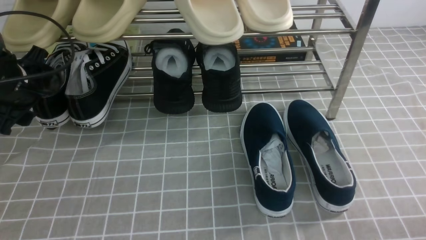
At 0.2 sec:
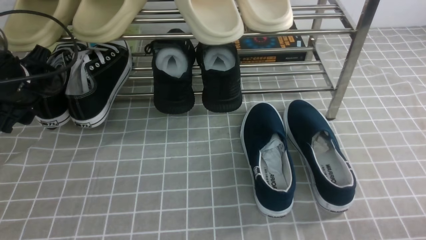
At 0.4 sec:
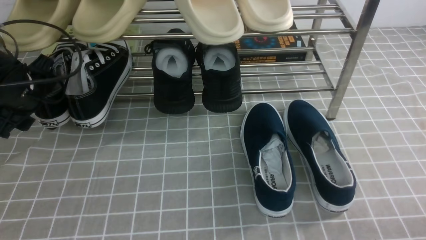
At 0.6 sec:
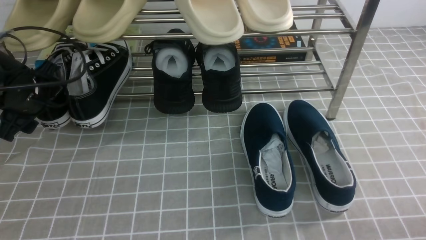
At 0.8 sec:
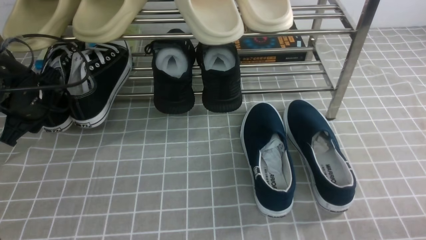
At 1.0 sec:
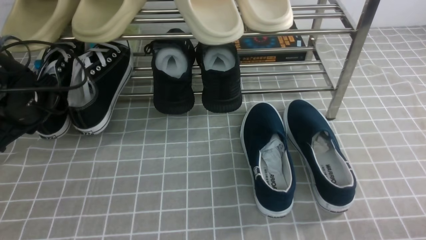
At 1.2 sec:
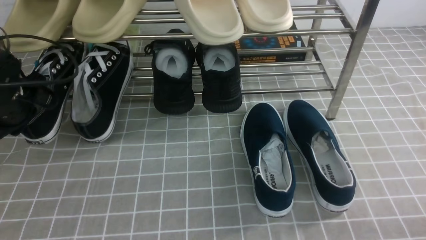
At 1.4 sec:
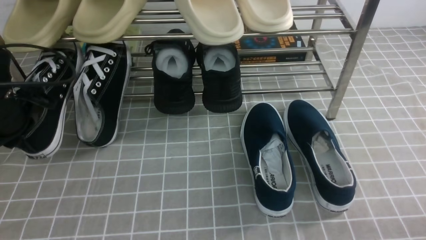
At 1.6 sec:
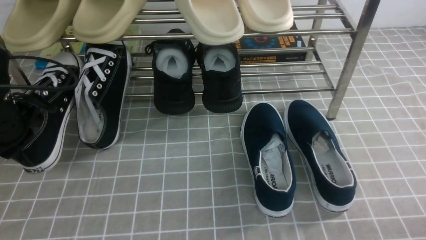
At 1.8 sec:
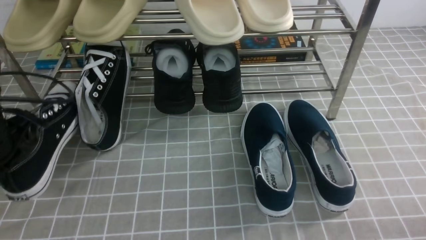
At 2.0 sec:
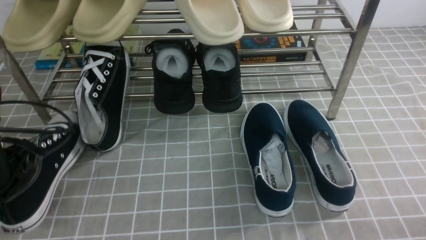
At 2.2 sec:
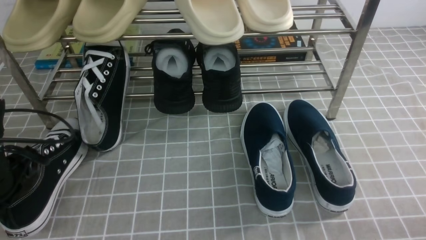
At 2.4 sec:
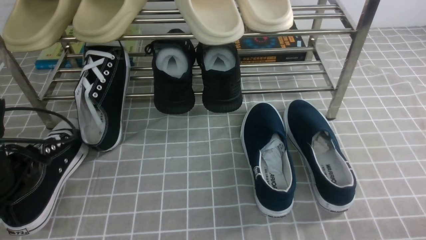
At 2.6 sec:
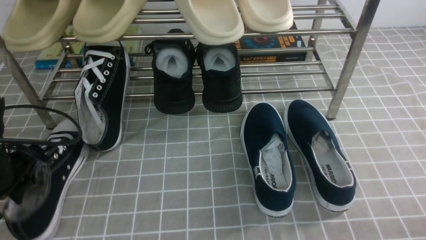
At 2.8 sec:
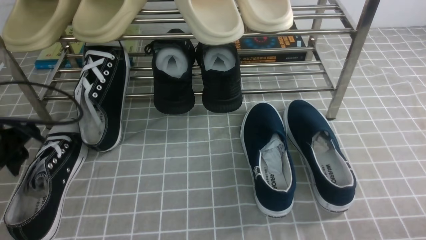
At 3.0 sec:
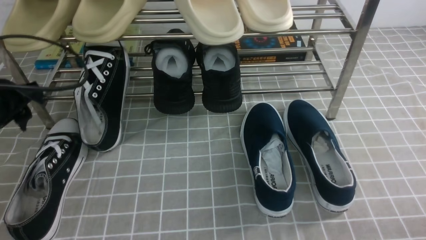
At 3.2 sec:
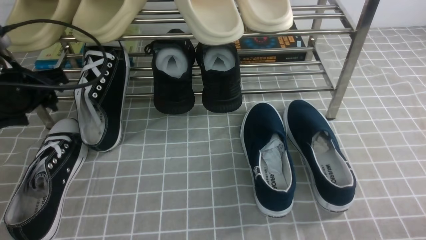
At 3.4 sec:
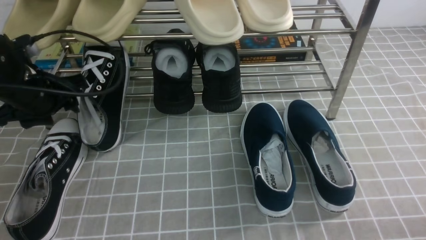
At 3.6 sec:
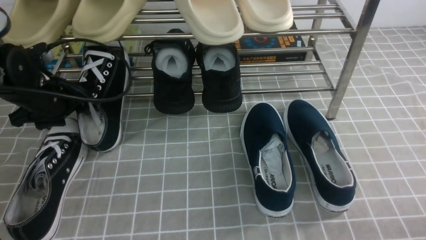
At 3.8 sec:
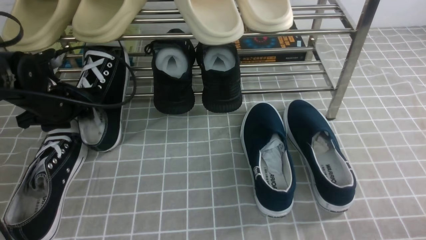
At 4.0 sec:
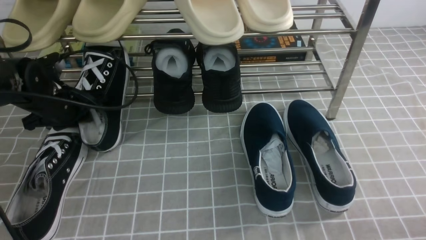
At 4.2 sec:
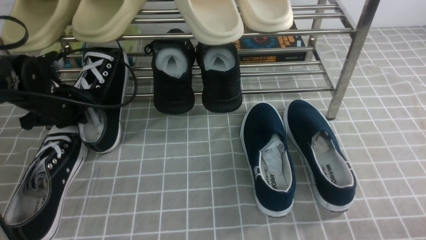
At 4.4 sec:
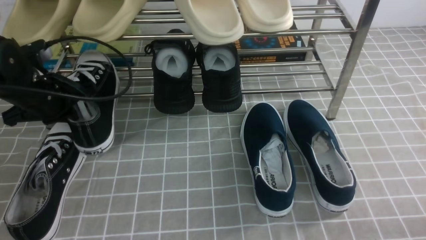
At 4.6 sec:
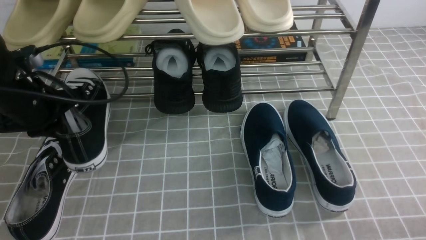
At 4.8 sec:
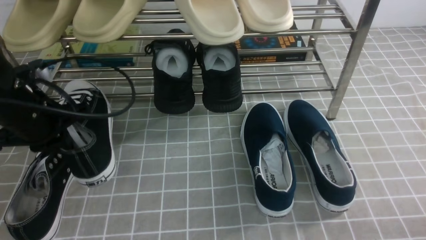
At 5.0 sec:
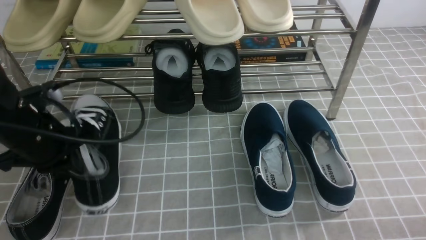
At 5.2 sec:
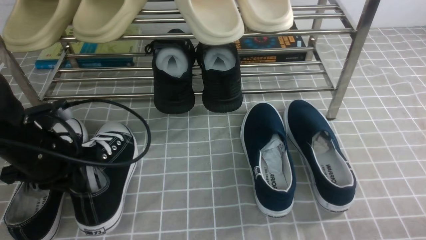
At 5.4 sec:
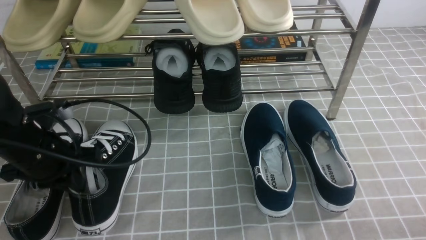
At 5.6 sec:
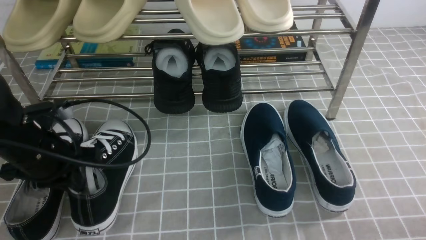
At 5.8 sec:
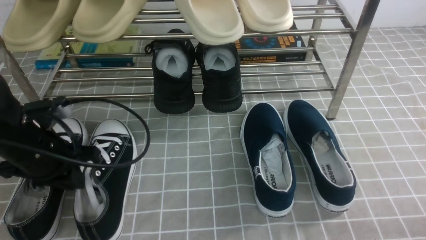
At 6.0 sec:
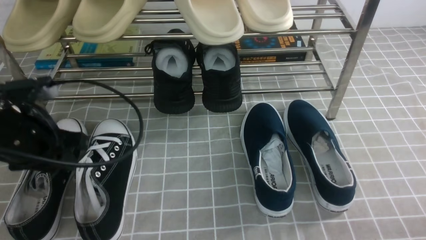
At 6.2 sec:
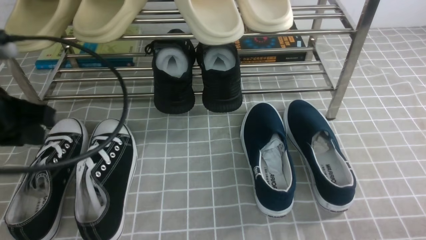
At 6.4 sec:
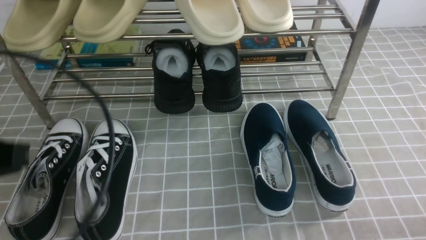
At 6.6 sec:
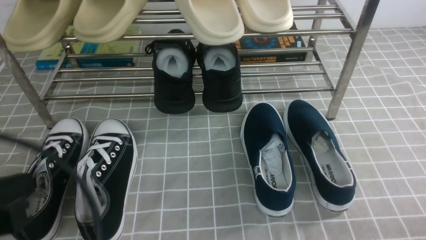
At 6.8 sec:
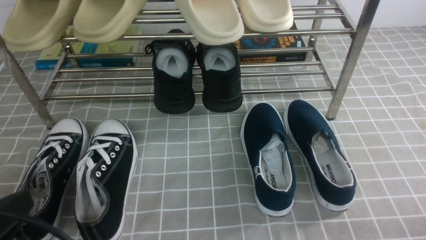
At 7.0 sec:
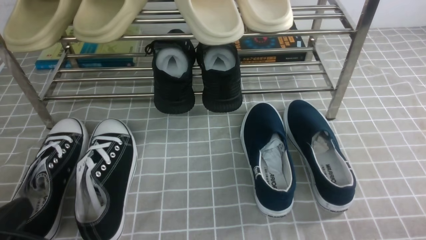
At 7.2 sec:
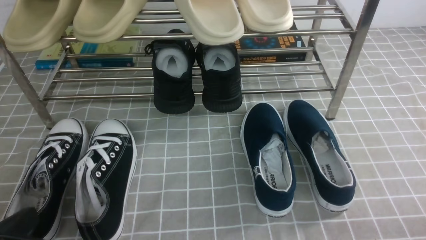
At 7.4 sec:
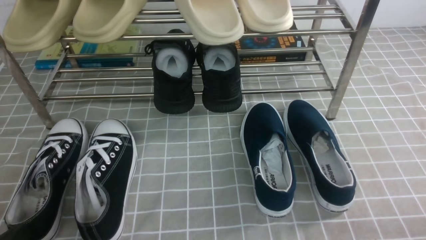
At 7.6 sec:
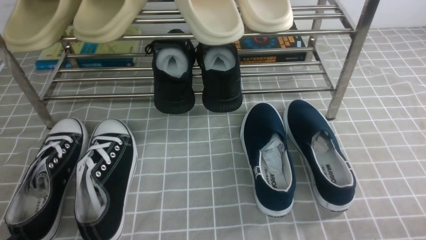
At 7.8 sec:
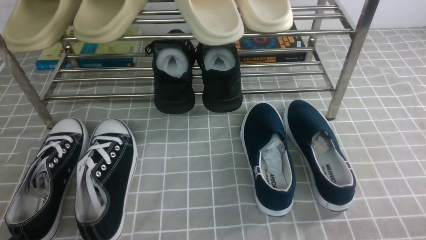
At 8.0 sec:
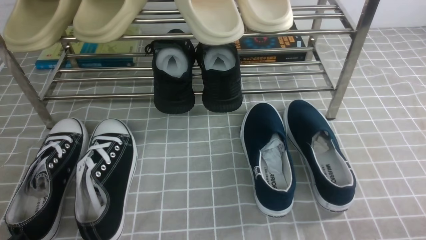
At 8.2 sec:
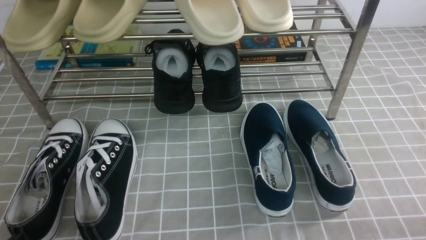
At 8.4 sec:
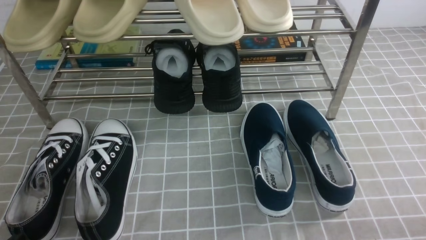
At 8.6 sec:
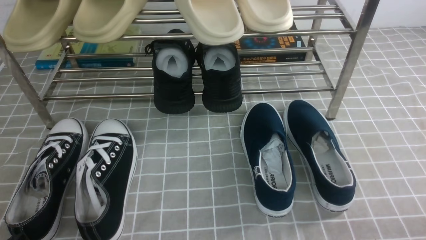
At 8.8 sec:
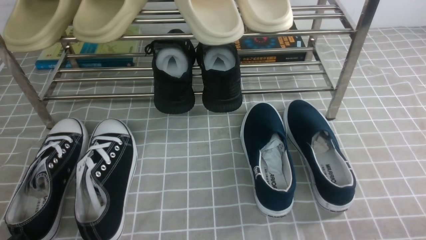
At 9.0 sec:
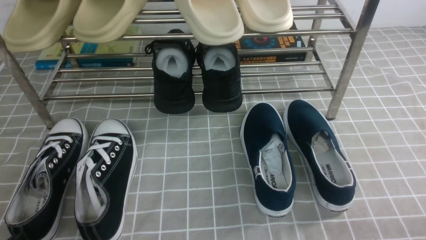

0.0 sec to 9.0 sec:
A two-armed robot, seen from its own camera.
Step, 1.2 sec to 2.8 sec: Use your left arm to remove the clamped shoe from the shoe rack and put it down.
Step, 3.0 sec to 4.6 sec: use the left arm to clamp a shoe on the left side of the shoe rack.
Step, 4.8 sec to 6.0 sec: Use your left arm to remove the clamped shoe from the shoe rack and put it down.
0.0 sec to 1.6 sec: The left gripper travels backward by approximately 5 cm, and closes up.
1.6 sec to 3.0 sec: The left gripper opens its fingers.
3.0 sec to 4.4 sec: The left gripper moves forward, roughly 5 cm, and closes up.
4.4 sec to 6.0 sec: The left gripper moves backward, about 10 cm, and opens its fingers.
6.0 sec to 7.6 sec: The left gripper moves backward and downward, some 20 cm, and closes up.
7.6 sec to 9.0 sec: Both grippers stay about where they are.

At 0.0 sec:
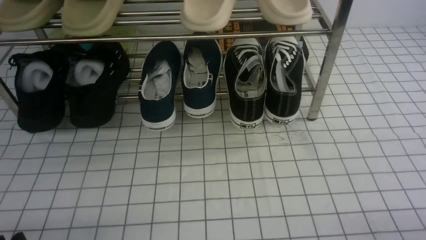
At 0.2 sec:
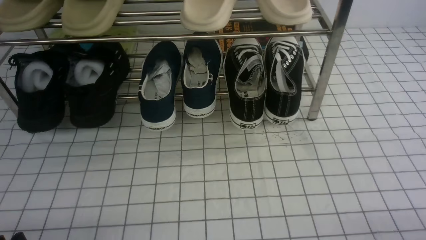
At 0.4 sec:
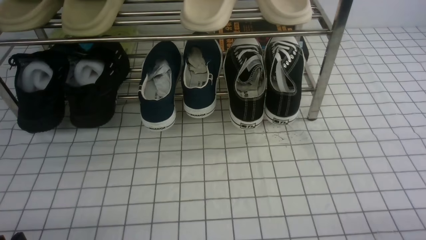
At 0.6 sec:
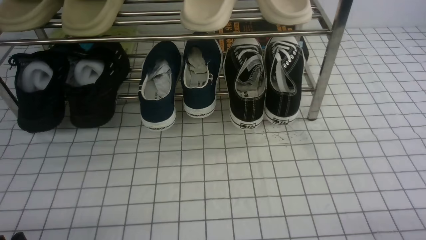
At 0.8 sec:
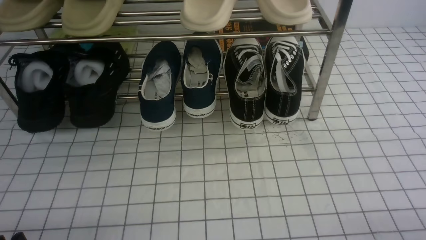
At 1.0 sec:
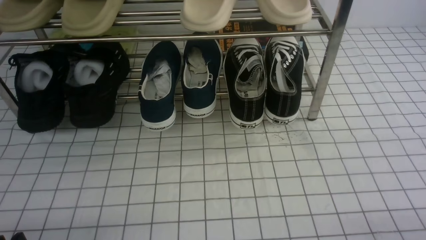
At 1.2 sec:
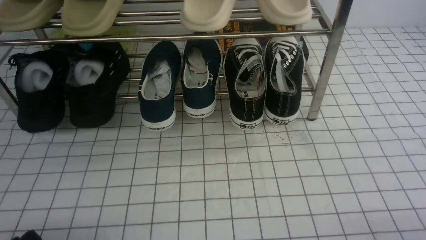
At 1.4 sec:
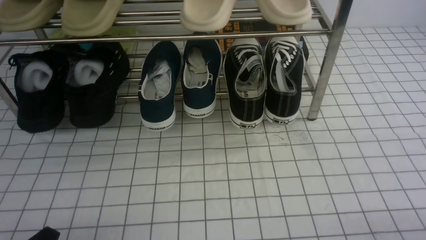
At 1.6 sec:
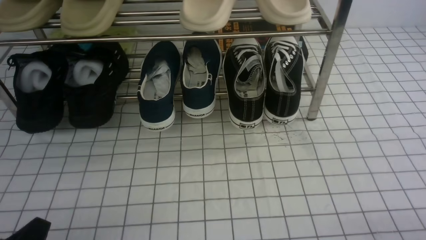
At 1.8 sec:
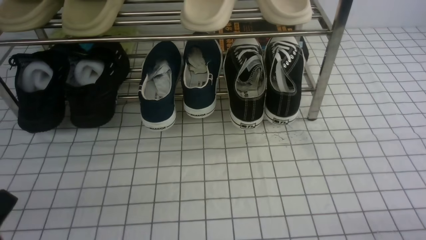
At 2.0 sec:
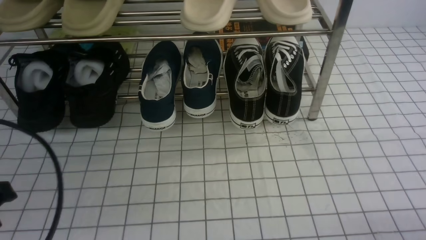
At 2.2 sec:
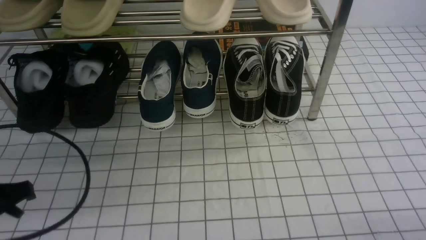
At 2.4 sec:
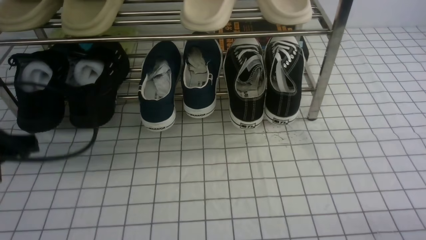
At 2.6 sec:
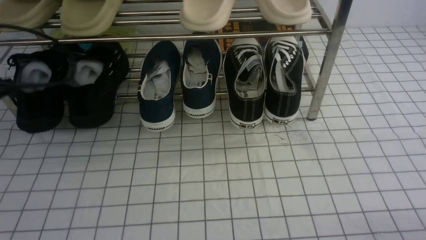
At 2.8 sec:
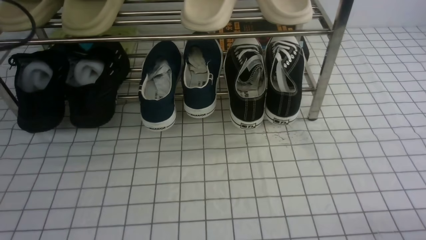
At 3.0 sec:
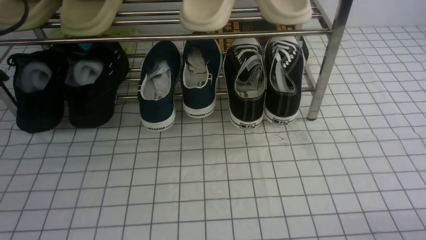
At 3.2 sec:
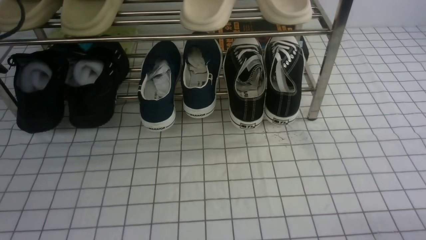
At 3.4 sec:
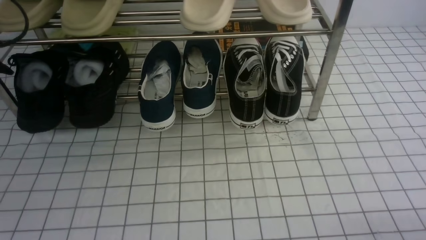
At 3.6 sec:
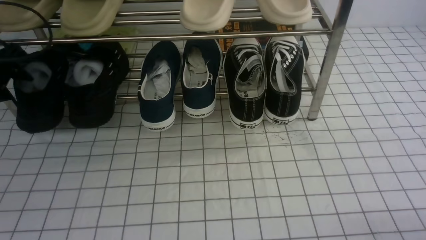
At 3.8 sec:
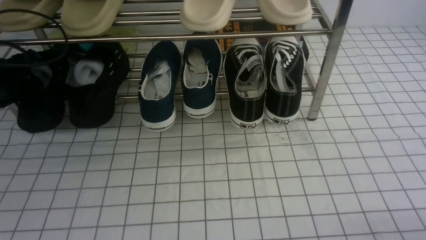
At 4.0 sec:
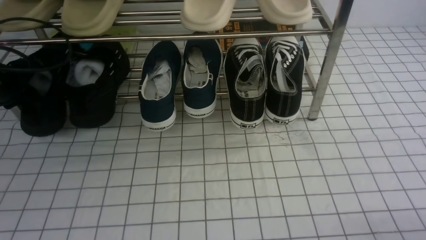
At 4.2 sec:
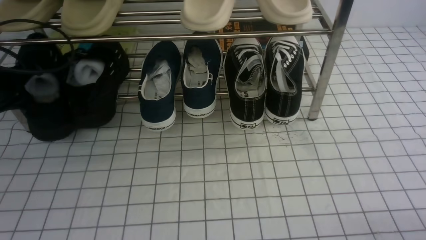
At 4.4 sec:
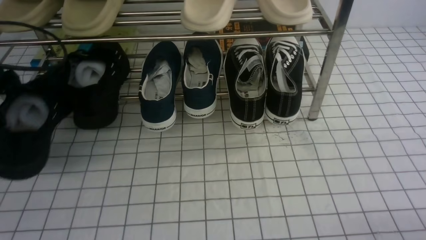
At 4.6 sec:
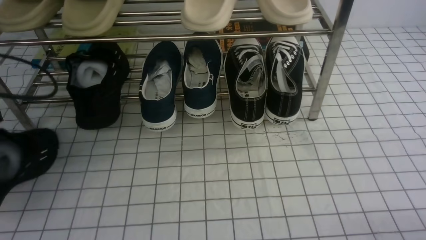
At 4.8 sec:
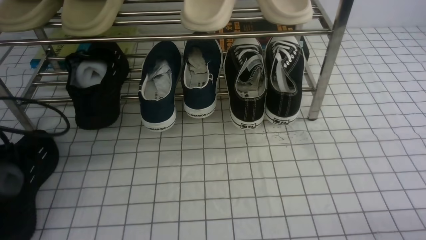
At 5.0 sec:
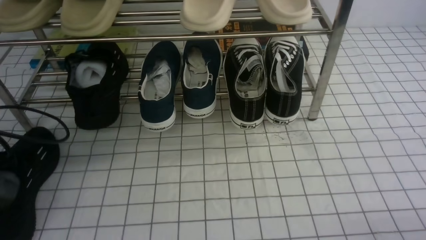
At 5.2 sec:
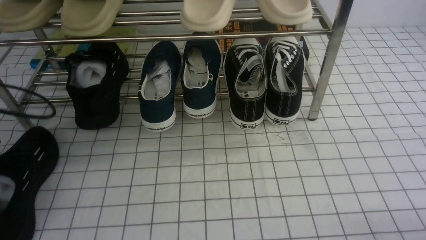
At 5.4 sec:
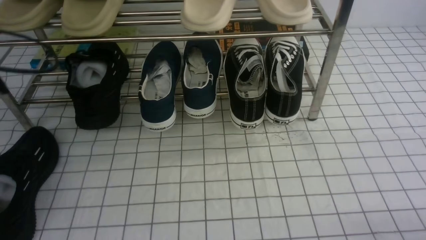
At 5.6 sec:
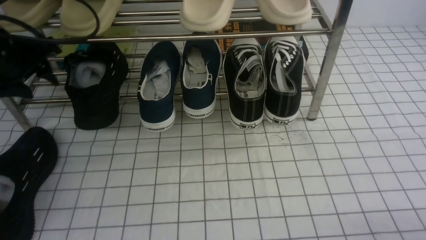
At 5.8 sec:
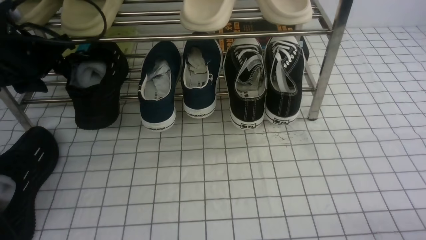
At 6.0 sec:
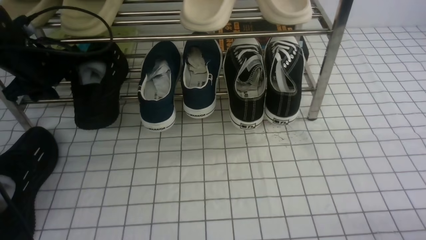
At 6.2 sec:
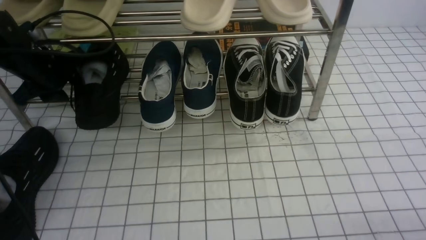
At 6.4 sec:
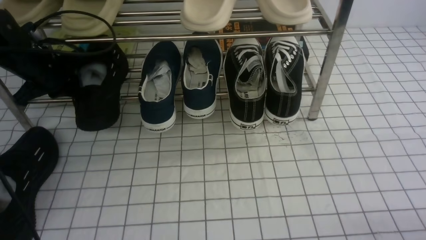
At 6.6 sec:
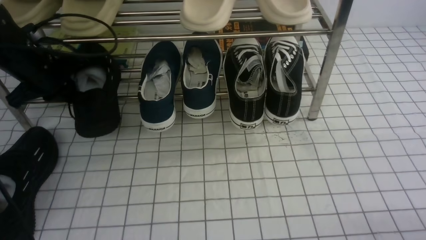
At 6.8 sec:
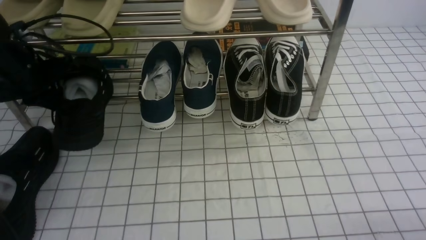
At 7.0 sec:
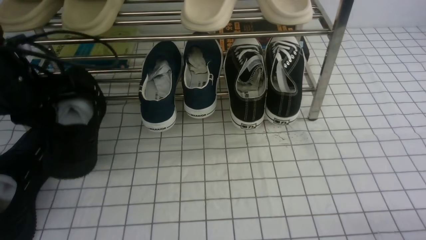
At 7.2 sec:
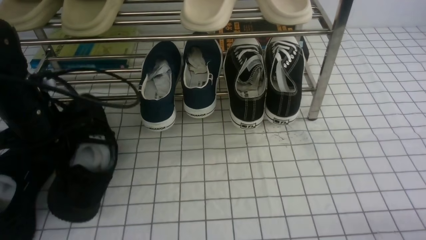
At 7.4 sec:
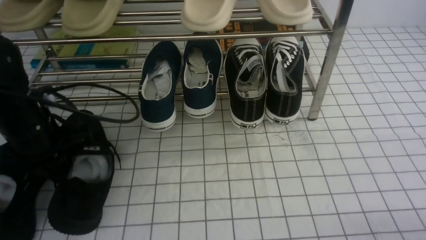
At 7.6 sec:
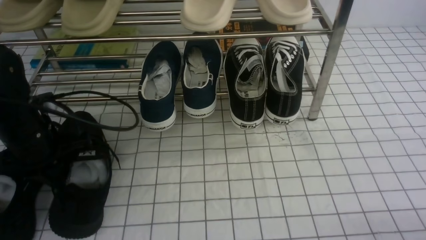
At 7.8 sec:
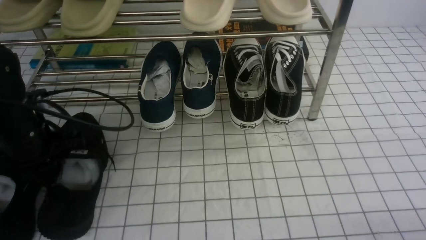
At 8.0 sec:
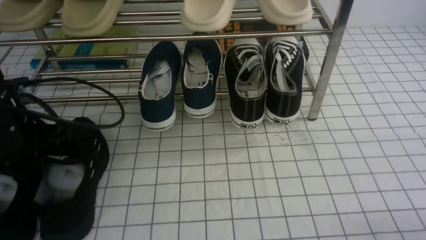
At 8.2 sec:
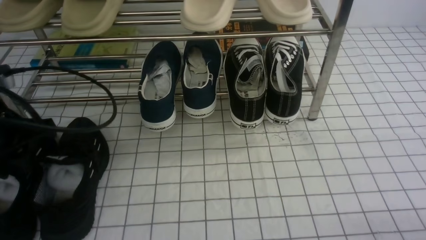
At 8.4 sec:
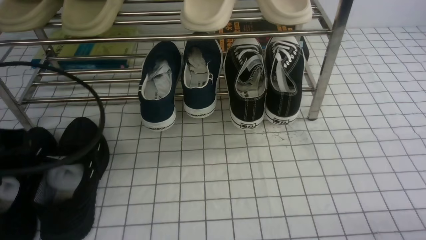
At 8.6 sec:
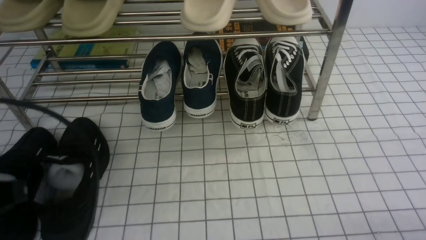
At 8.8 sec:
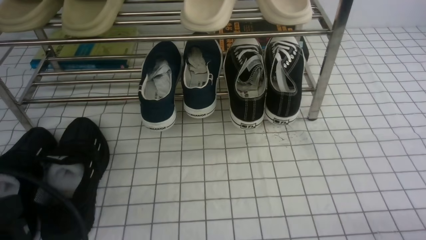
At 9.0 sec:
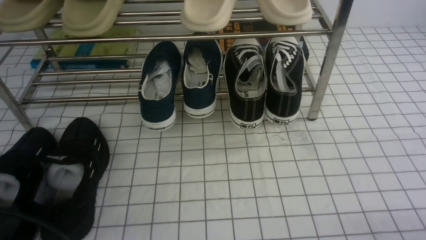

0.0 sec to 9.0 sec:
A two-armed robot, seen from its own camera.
Step, 0.0 sec to 4.0 sec: use the left arm to clamp a shoe on the left side of the shoe rack.
Step, 4.2 sec to 5.2 sec: Use your left arm to remove the clamped shoe from the shoe rack and put it down.
Step, 5.4 sec to 6.2 sec: use the left arm to clamp a shoe on the left side of the shoe rack.
Step, 6.4 sec to 8.2 sec: Use your left arm to remove the clamped shoe from the shoe rack and put it down.
1.6 sec to 3.0 sec: The left gripper shifts about 30 cm forward, to the left and upward.
3.0 sec to 4.4 sec: The left gripper travels forward and back again, approximately 5 cm each way, and opens, then closes again.
4.4 sec to 6.0 sec: The left gripper shifts approximately 10 cm forward and to the right, and opens its fingers.
6.0 sec to 7.6 sec: The left gripper shifts about 10 cm backward, and closes its fingers.
7.6 sec to 9.0 sec: The left gripper goes about 25 cm backward.
